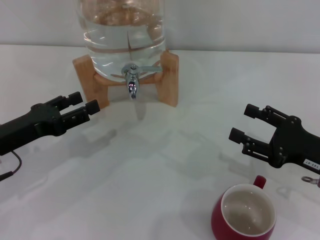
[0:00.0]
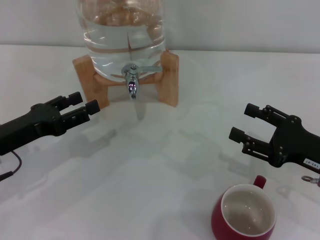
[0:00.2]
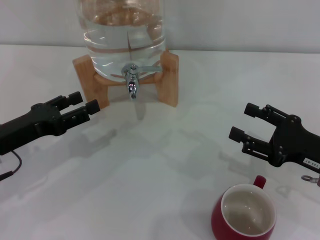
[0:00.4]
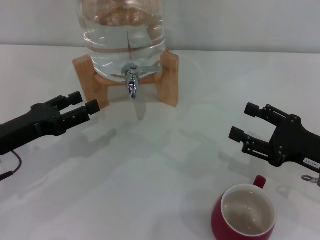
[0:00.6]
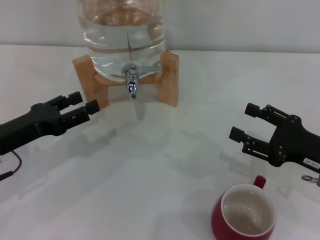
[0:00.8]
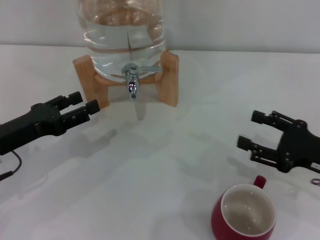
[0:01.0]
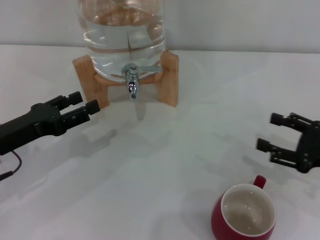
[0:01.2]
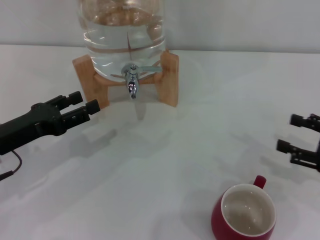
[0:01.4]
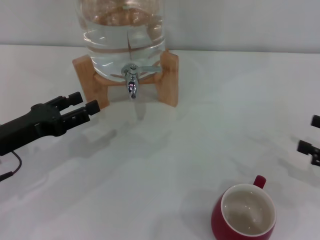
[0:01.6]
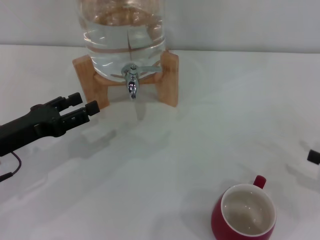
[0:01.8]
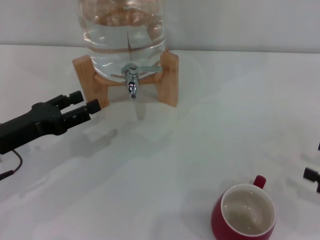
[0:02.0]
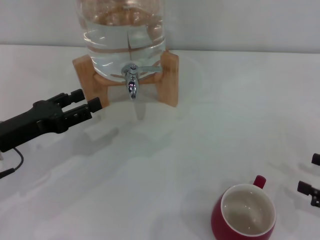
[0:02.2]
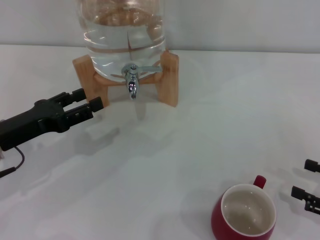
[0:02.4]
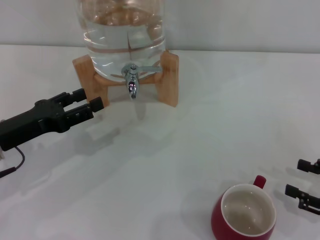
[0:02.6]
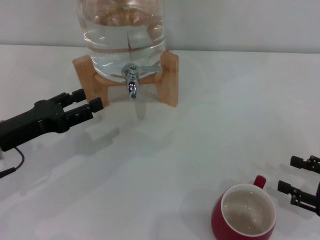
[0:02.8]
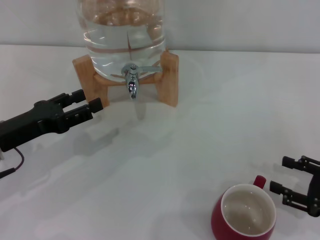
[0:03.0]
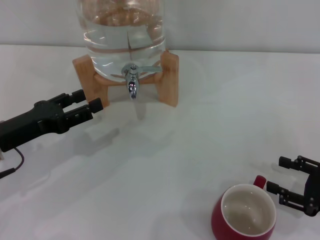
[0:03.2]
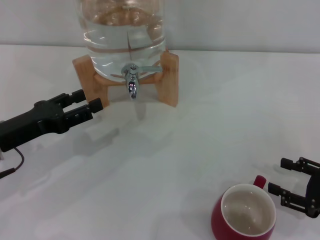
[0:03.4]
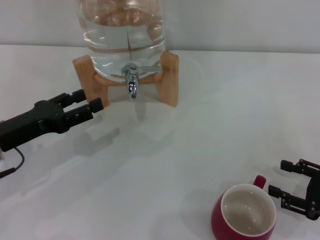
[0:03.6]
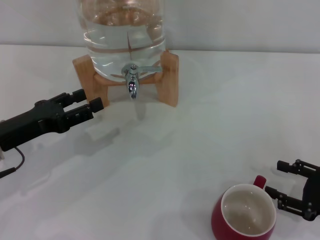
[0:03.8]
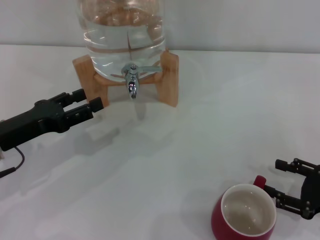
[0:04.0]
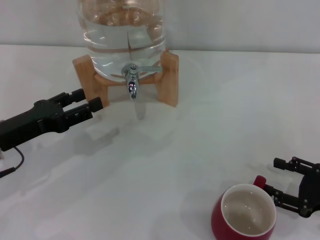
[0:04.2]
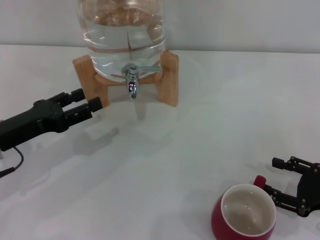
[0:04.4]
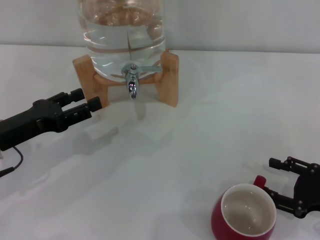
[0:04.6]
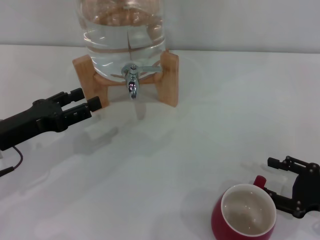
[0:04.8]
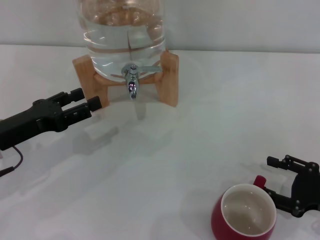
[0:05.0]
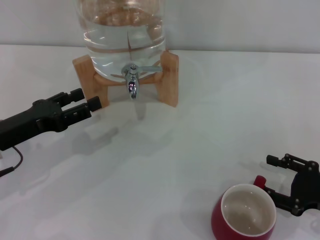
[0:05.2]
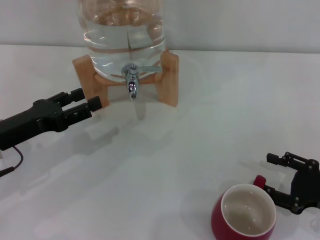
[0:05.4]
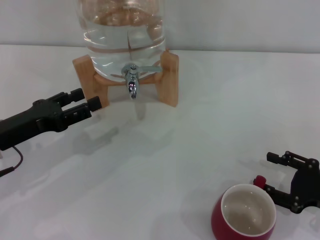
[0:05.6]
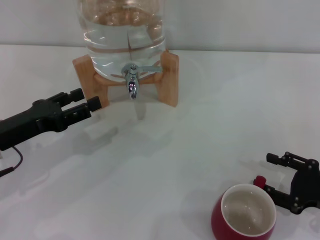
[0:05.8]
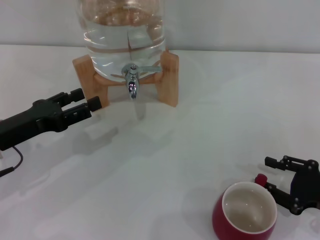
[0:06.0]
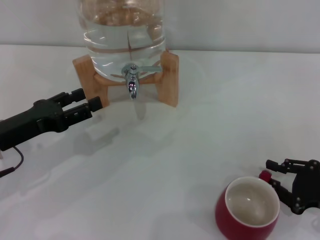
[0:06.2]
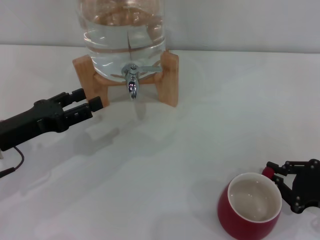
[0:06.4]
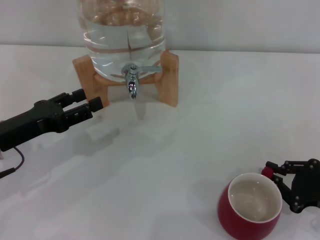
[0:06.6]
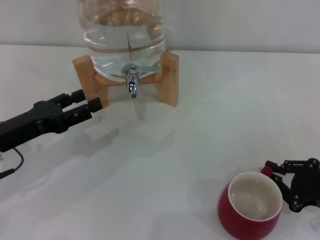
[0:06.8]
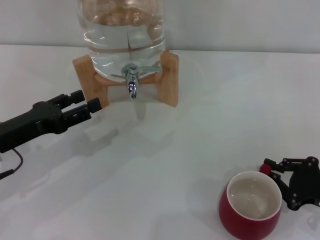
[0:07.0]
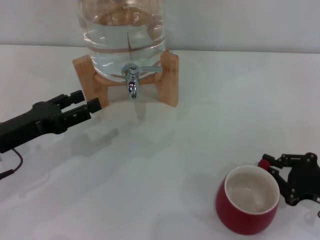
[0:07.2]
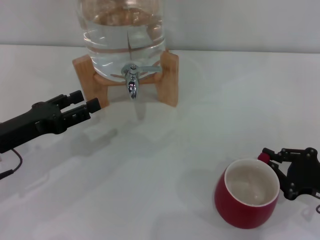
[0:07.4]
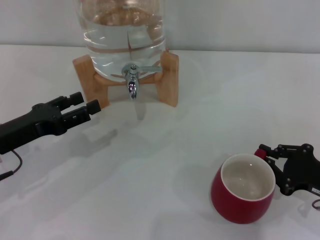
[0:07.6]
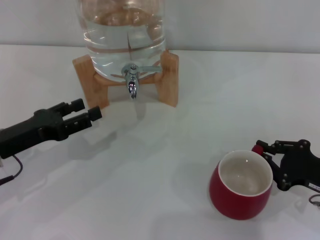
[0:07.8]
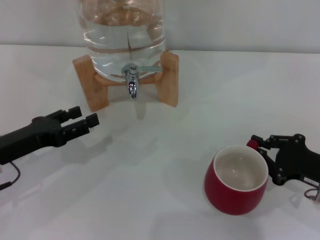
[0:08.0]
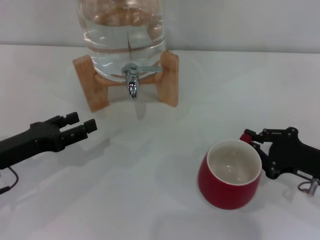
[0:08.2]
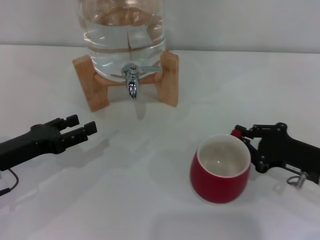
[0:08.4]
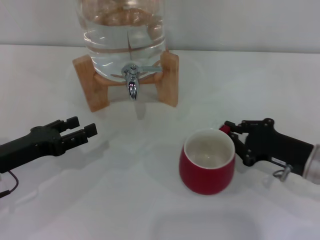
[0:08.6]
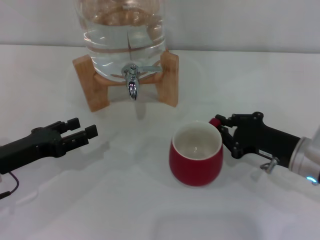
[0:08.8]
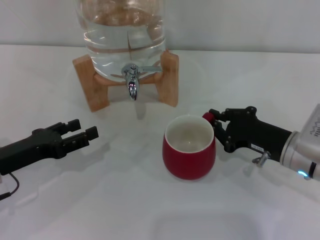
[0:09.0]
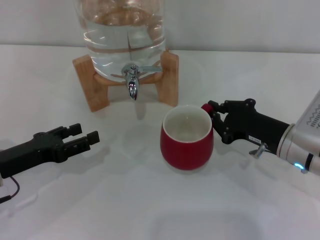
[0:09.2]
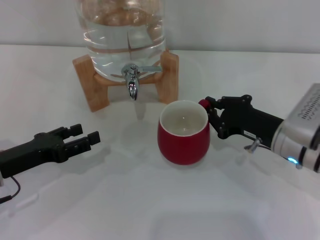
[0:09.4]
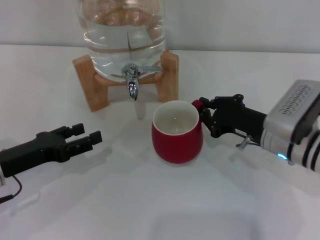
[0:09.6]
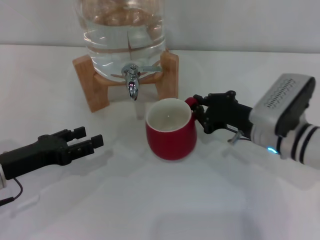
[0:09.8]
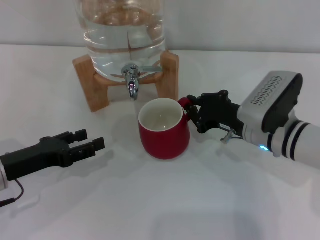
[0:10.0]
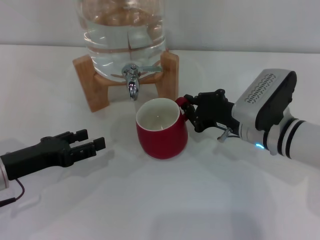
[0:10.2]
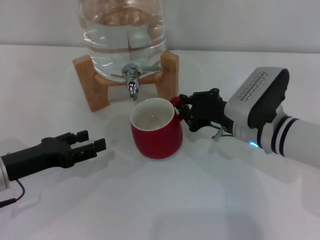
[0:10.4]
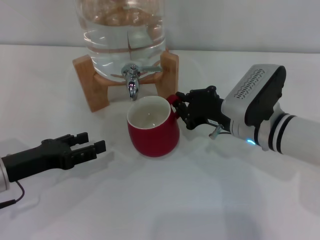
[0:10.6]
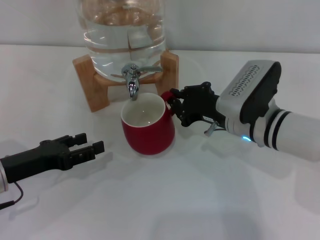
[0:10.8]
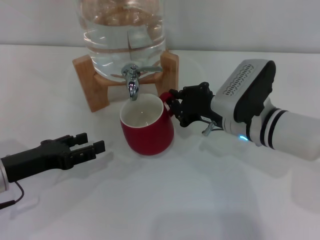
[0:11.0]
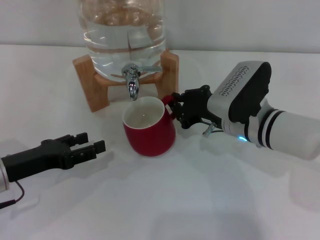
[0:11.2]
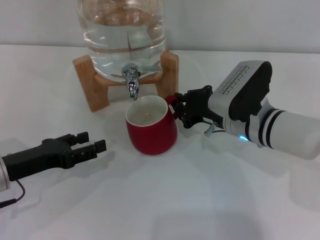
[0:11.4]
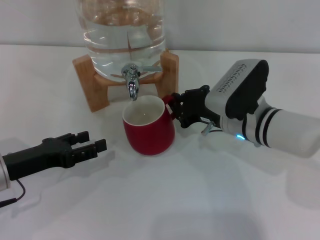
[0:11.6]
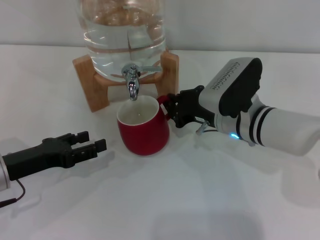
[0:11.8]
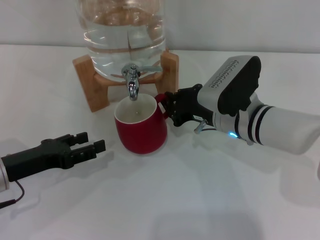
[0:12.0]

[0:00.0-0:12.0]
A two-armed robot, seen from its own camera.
Task of the whole recording: the right gripper pick up the red cup and place it horizontally under the faucet, the left gripper turn on the faucet to fill the cup, and then turn off the faucet.
0:00.0 to 0:01.6: The right gripper heads to the right, covering some 10 cm.
0:01.6 to 0:03.0: The right gripper changes place by about 5 cm.
0:03.0 to 0:06.0: There are only small adjustments of the grippers.
0:06.0 to 0:07.6: The right gripper closes its fingers.
0:07.6 to 0:09.0: The right gripper shifts some 10 cm to the left and forward.
0:09.0 to 0:10.4: The right gripper travels to the left by roughly 5 cm.
0:10.4 to 0:12.0: The grippers stay close to where they were, moving slightly.

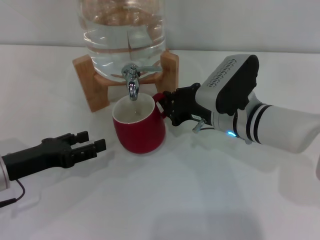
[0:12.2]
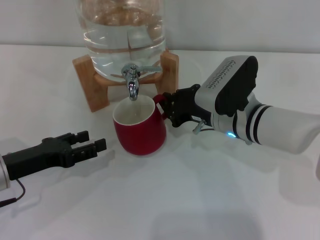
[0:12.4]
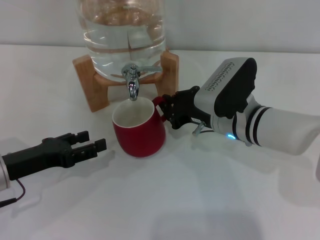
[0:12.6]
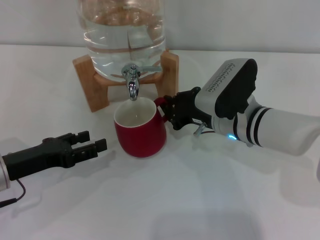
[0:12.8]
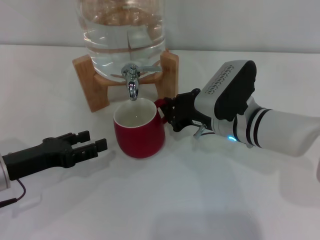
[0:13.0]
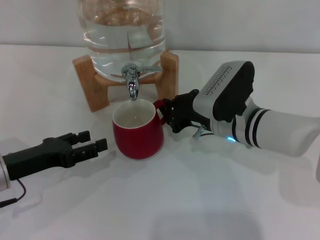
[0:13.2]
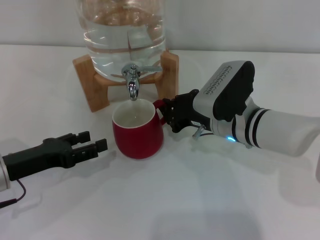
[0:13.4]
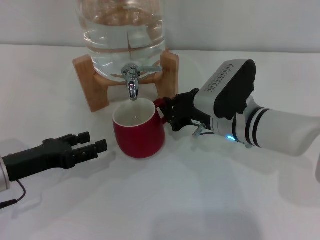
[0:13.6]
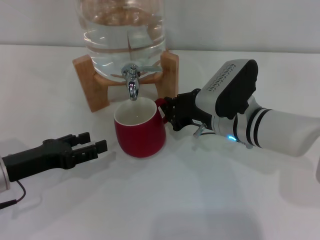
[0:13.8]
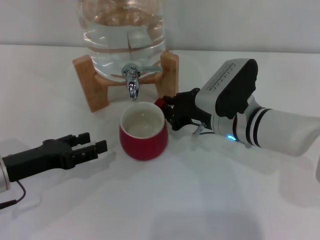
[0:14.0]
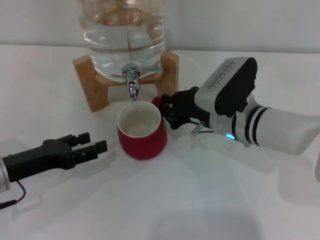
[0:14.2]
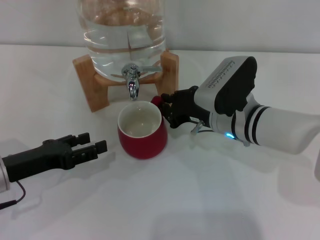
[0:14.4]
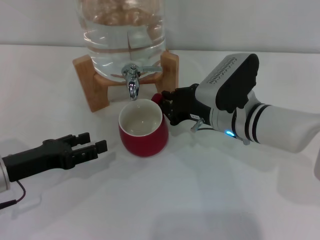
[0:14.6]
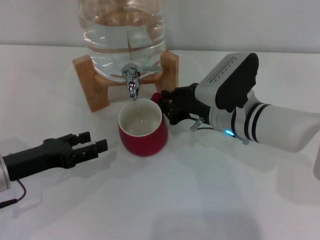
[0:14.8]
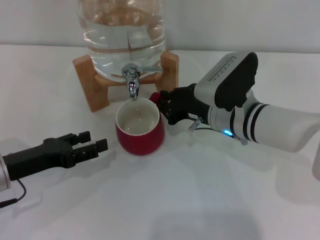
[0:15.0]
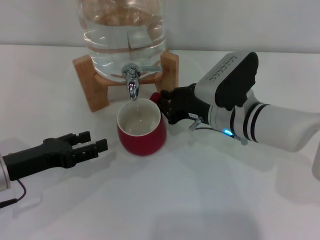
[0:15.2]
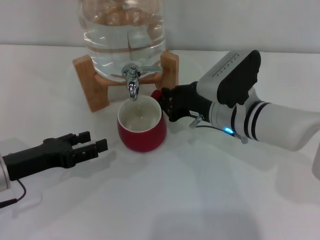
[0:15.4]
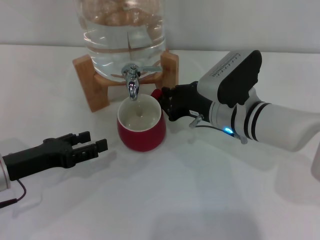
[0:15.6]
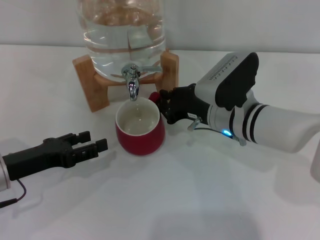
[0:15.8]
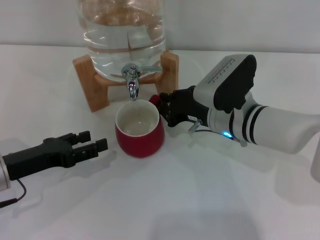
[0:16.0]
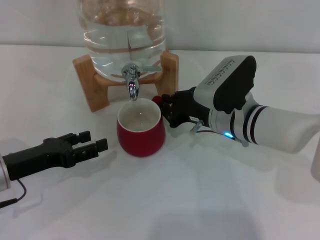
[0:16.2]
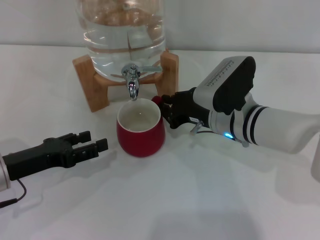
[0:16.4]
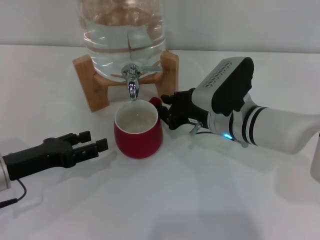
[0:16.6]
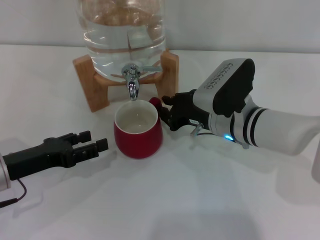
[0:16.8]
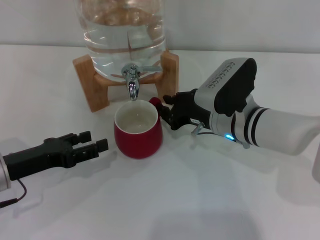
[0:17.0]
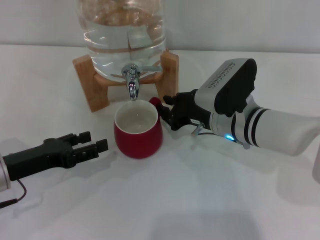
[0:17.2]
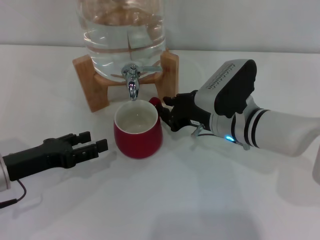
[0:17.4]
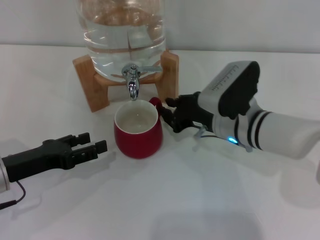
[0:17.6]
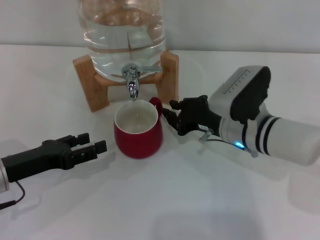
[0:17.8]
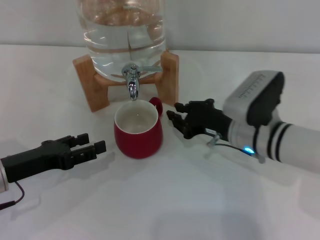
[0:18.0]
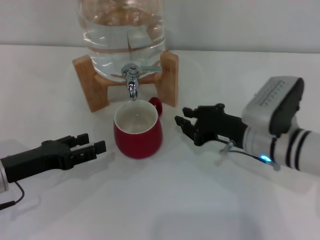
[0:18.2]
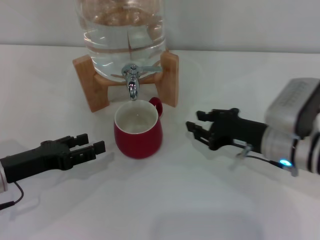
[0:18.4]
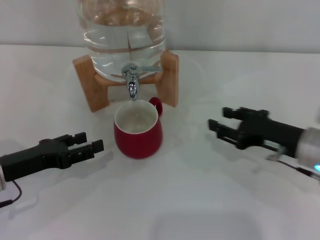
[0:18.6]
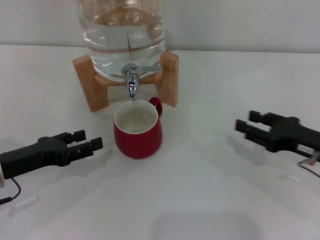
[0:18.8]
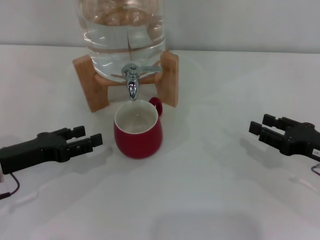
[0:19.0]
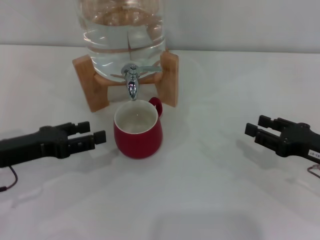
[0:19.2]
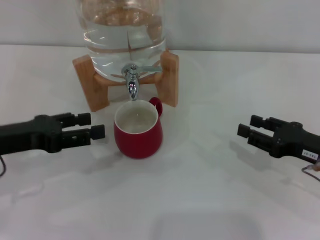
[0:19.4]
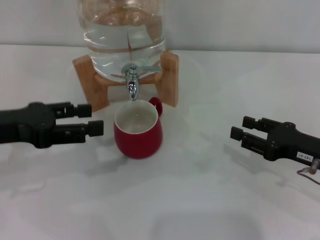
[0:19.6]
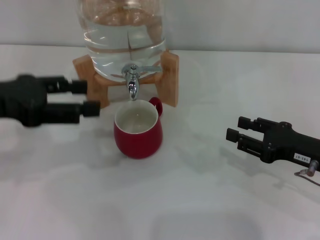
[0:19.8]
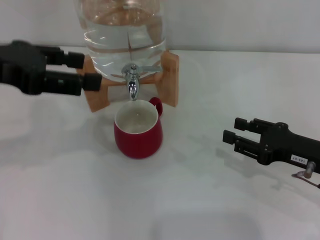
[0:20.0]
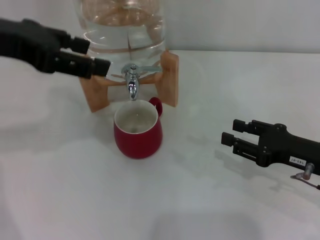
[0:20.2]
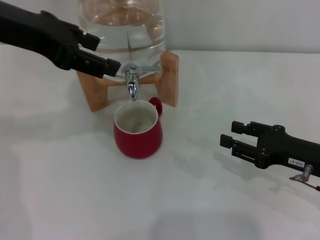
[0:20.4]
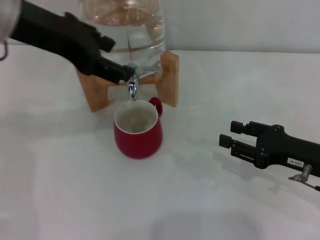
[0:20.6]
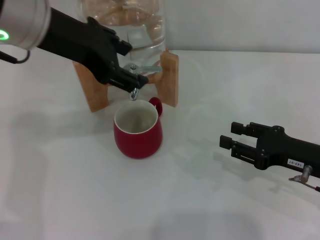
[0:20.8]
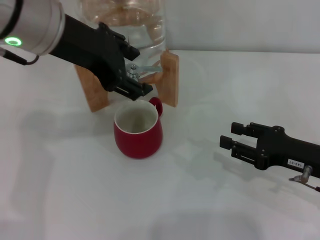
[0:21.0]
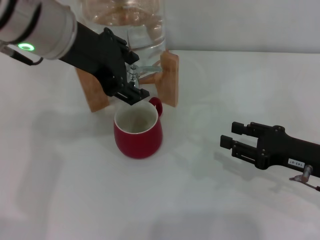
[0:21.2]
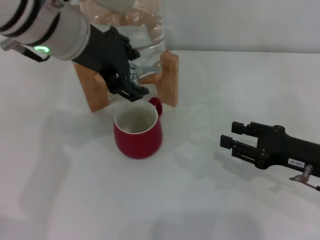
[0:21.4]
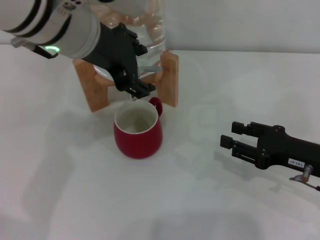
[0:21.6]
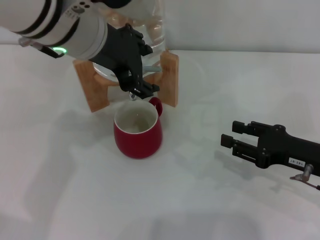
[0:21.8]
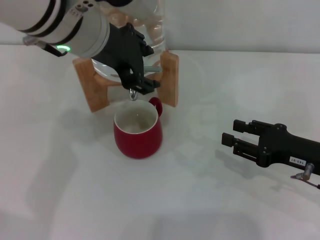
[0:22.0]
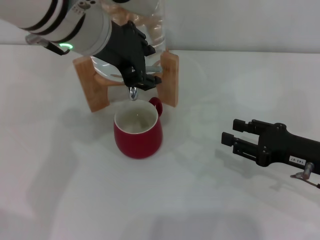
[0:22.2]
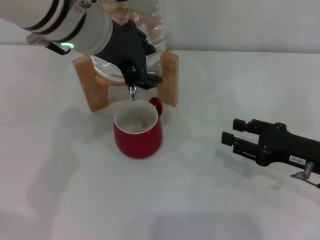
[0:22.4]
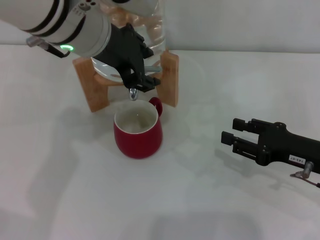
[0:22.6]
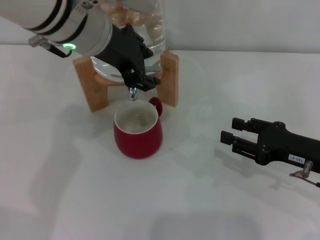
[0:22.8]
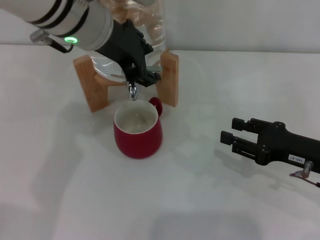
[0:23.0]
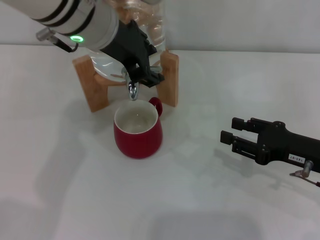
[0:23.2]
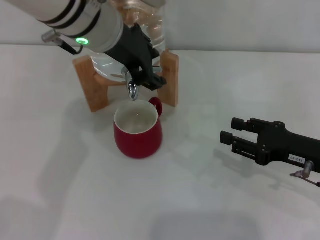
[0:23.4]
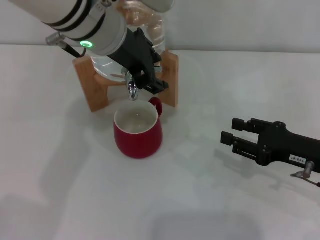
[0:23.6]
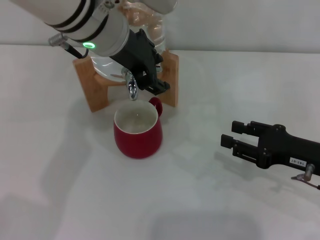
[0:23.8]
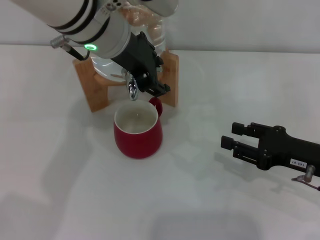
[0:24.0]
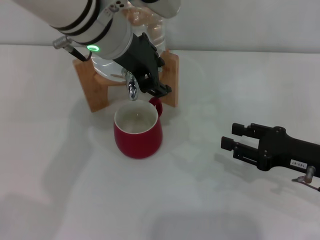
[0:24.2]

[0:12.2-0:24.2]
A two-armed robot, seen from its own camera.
Task of the whole recording: the right gripper pick up the red cup and place it horizontally under the faucet, the left gripper turn on the faucet to fill the cup, and then turn off the faucet.
Step, 0:12.2 to 0:17.8: Move the cup beneath the water dispenser nozzle with the right gripper.
0:12.2 to 0:15.2: Both grippers stay put.
0:15.2 to 0:16.6: The two grippers keep their place.
0:16.6 to 0:18.2: The right gripper moves to the right, roughly 5 cm.
0:18.2 to 0:19.8: The left gripper heads upward, covering about 15 cm. The right gripper goes about 10 cm to the right and backward, and opens its fingers.
0:19.8 to 0:21.2: The left gripper travels to the right, forward and upward by some 15 cm.
0:21.2 to 0:22.6: The left gripper closes its fingers.
0:22.6 to 0:24.2: The grippers stay close to where they were, moving slightly.
